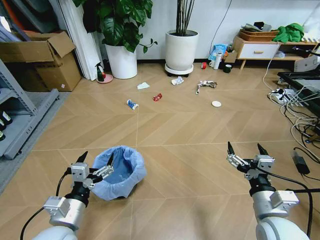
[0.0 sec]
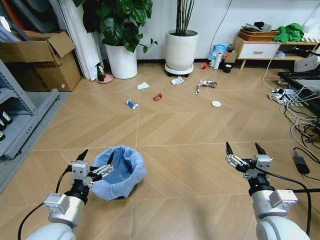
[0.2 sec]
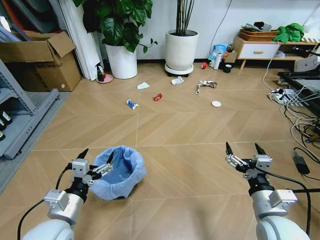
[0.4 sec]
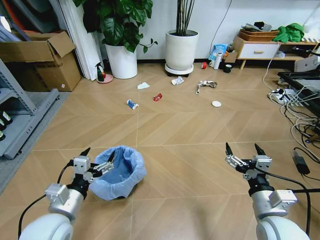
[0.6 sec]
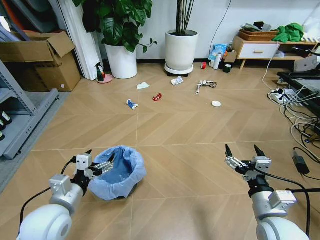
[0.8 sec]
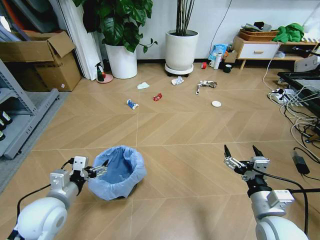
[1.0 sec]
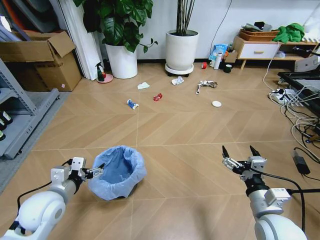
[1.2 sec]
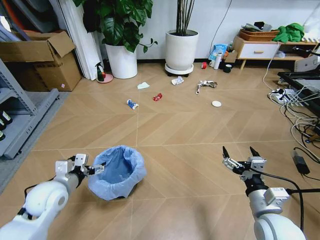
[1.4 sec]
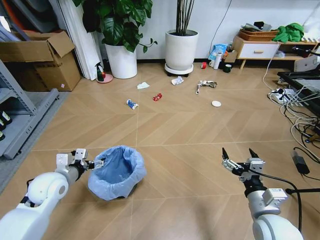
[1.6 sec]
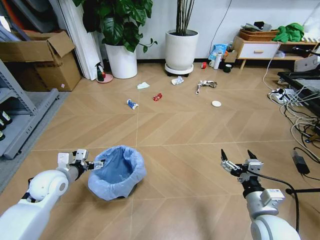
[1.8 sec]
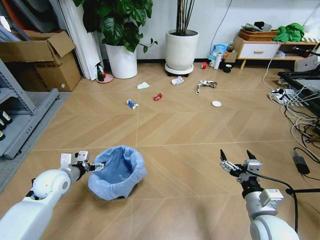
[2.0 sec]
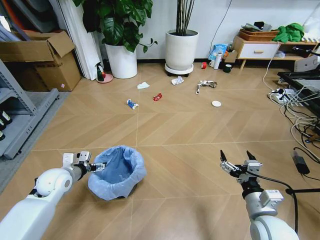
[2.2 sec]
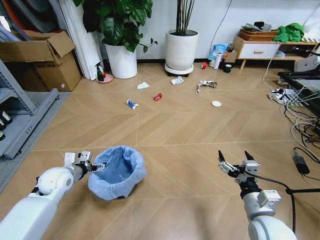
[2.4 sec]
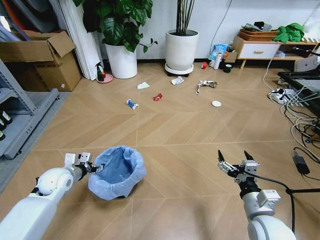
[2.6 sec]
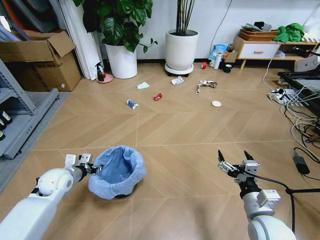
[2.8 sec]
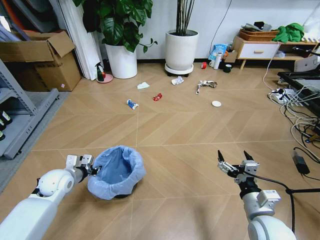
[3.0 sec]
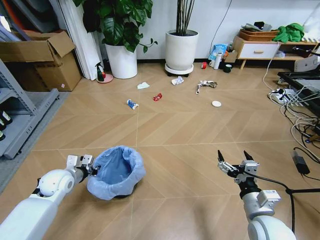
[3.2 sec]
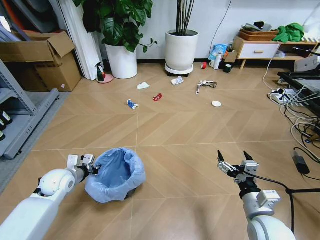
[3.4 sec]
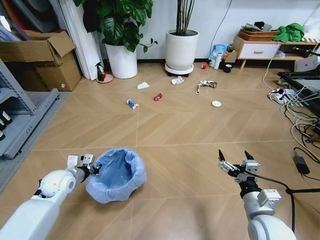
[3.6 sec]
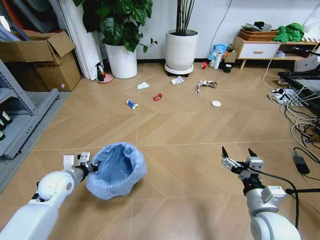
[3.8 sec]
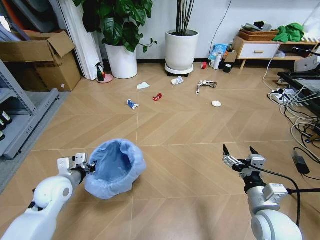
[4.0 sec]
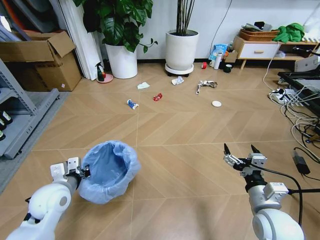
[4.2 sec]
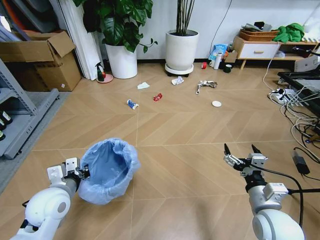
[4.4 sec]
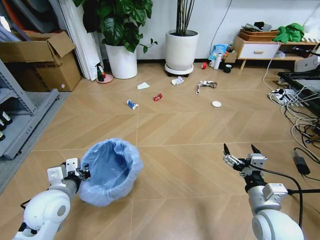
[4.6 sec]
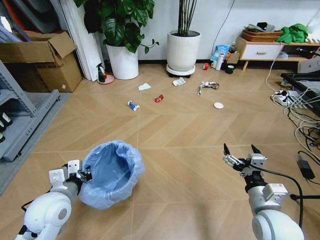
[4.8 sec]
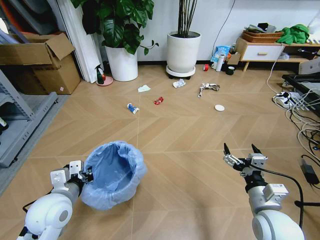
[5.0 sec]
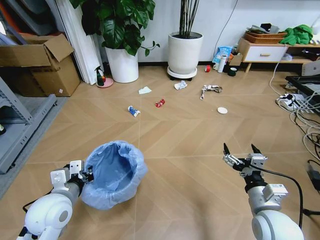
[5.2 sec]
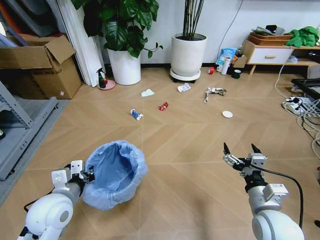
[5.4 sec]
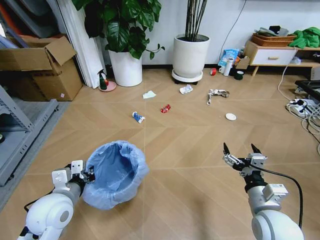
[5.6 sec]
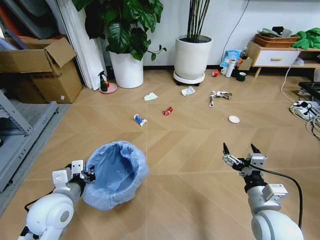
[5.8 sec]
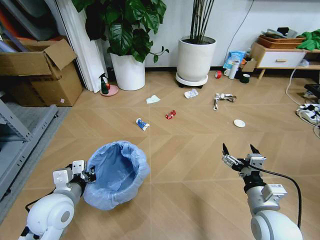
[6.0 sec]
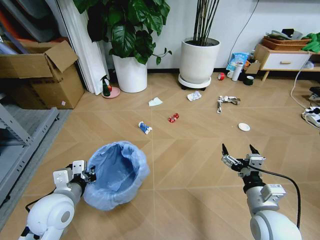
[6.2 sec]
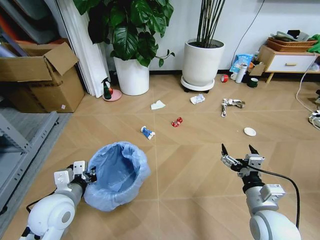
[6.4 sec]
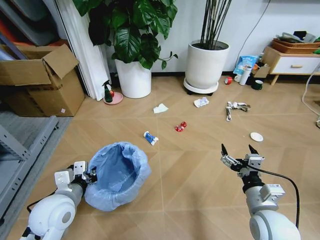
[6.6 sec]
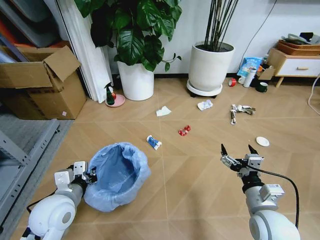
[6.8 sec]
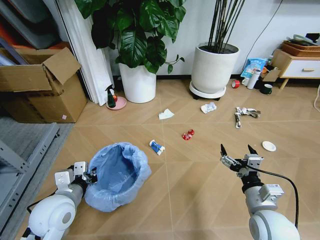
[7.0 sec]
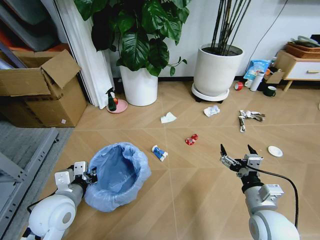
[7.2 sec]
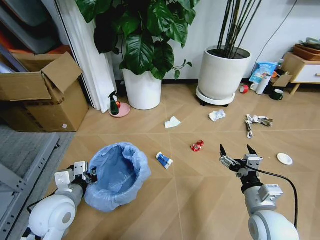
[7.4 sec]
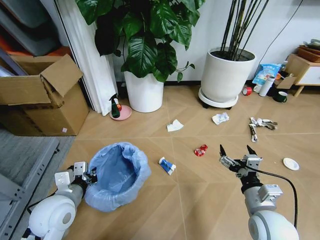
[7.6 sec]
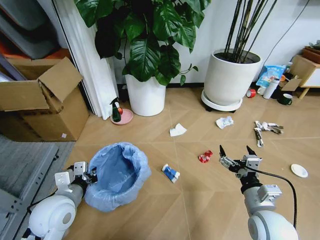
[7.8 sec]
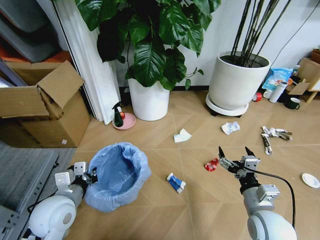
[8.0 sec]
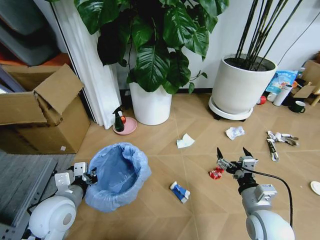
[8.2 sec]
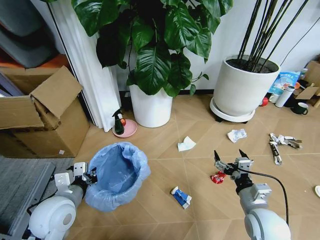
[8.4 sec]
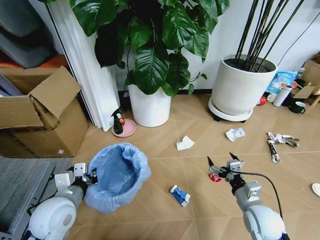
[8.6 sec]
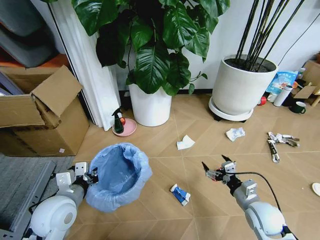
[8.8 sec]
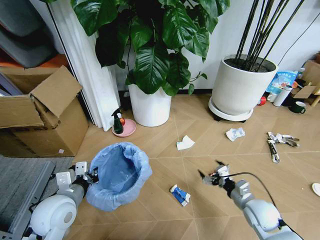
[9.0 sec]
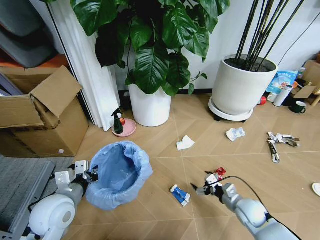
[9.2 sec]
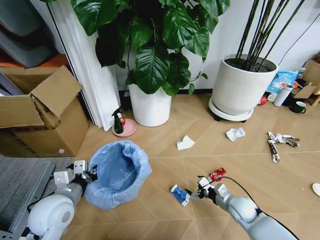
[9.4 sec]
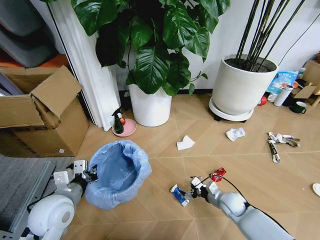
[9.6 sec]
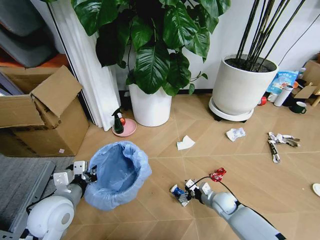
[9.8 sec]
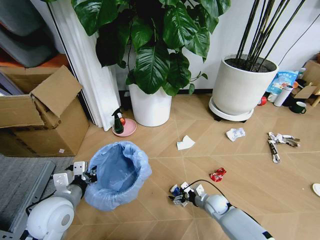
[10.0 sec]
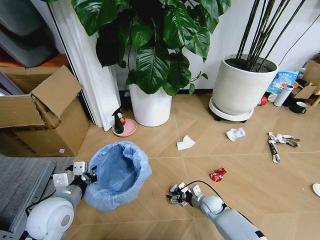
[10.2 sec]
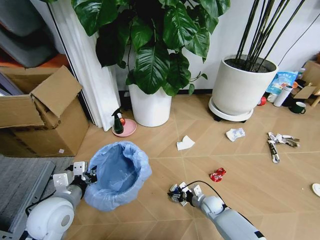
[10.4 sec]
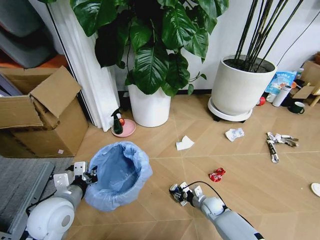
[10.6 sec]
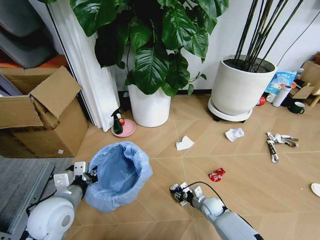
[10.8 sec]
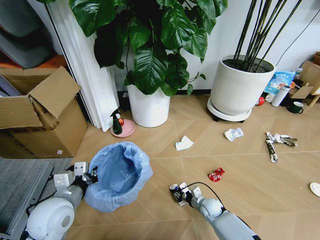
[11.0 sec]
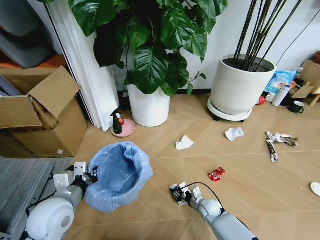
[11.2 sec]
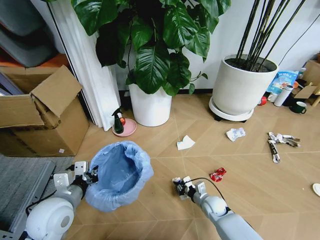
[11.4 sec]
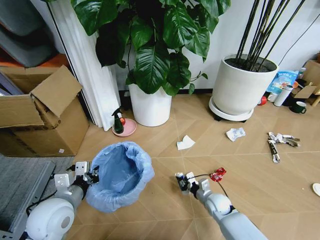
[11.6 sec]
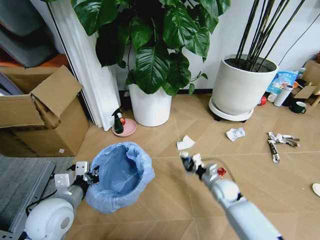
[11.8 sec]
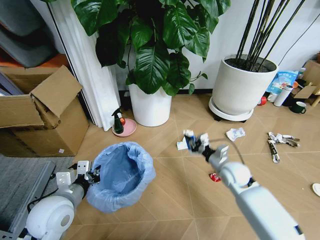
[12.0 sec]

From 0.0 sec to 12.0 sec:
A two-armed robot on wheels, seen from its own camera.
Task of the whole recording: Pick up the trash bin and place the garbage on the floor into it.
From 1.6 sec to 3.0 sec: The left gripper heads downward, covering about 5 cm, and closes up.
From 3.0 sec to 4.4 sec: The left gripper moves backward, upward and to the right, some 15 cm.
From 7.6 sec to 9.0 sec: The right gripper travels downward, forward and to the right by about 15 cm.
From 9.0 sec to 10.4 sec: The right gripper moves downward, to the left and forward, roughly 20 cm.
From 10.4 sec to 12.0 sec: The right gripper is displaced upward by about 20 cm, and closes up.

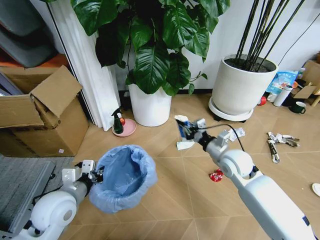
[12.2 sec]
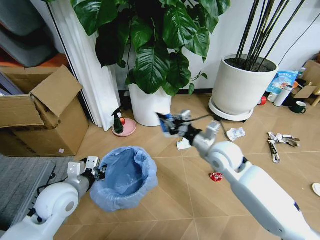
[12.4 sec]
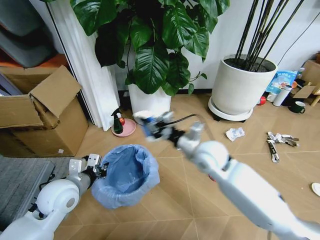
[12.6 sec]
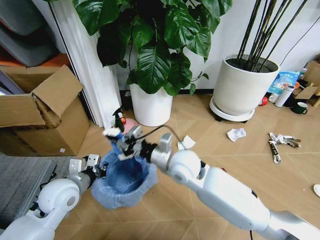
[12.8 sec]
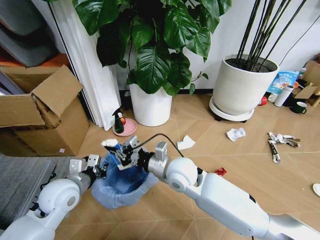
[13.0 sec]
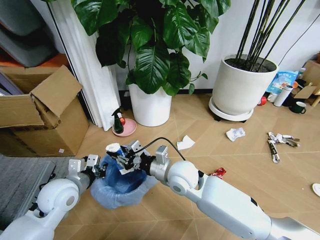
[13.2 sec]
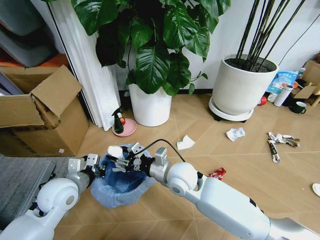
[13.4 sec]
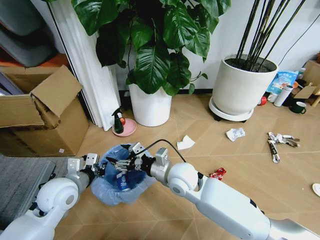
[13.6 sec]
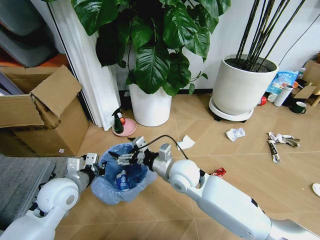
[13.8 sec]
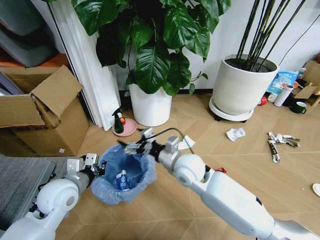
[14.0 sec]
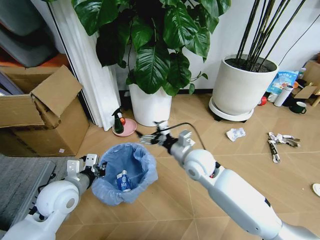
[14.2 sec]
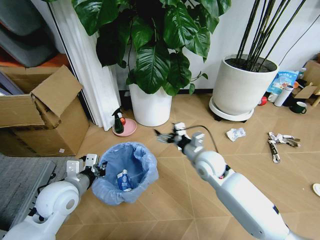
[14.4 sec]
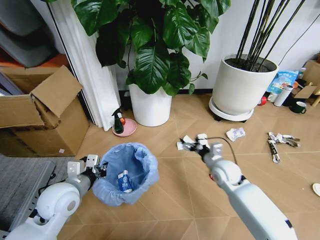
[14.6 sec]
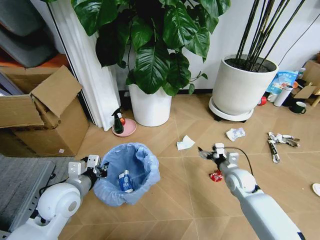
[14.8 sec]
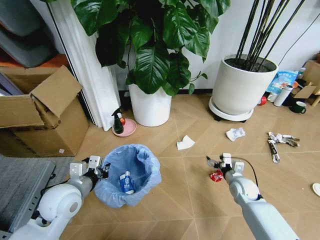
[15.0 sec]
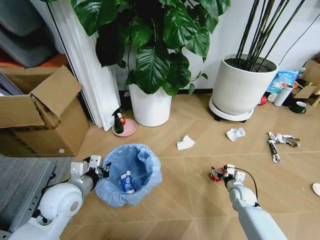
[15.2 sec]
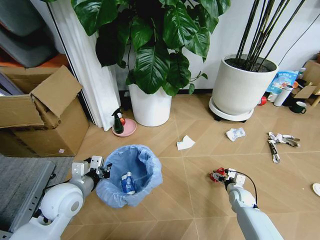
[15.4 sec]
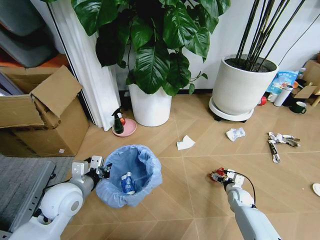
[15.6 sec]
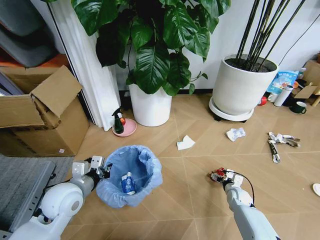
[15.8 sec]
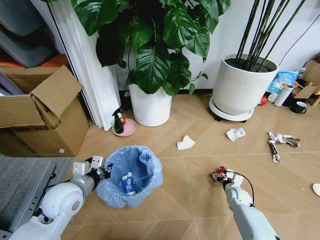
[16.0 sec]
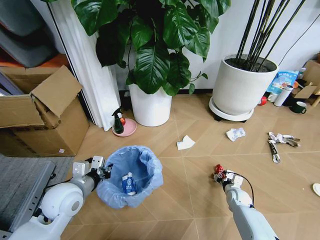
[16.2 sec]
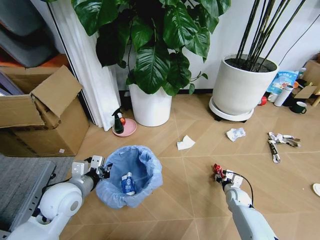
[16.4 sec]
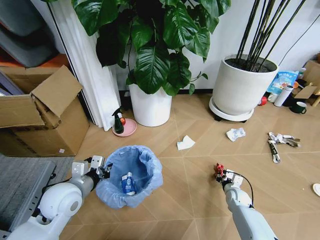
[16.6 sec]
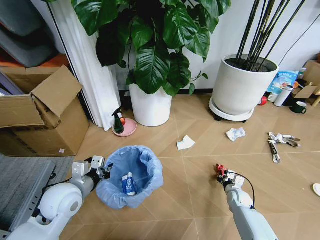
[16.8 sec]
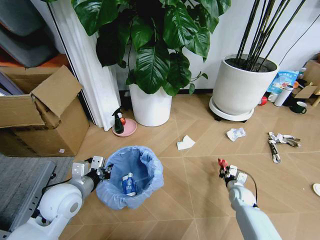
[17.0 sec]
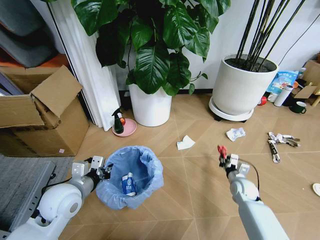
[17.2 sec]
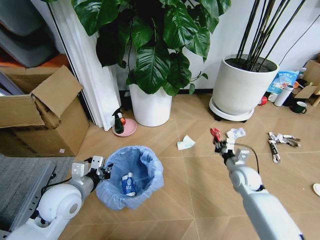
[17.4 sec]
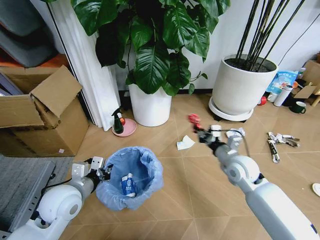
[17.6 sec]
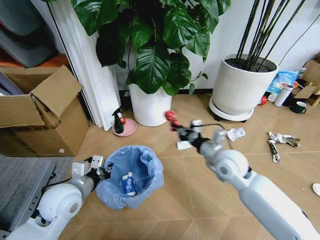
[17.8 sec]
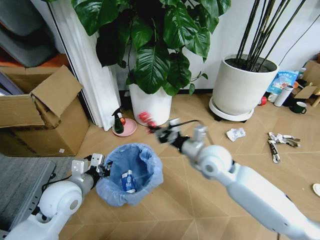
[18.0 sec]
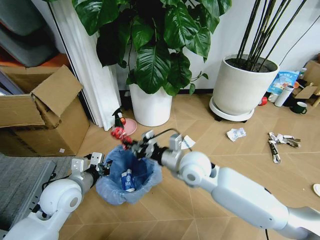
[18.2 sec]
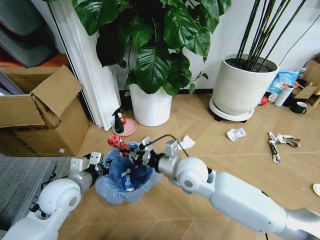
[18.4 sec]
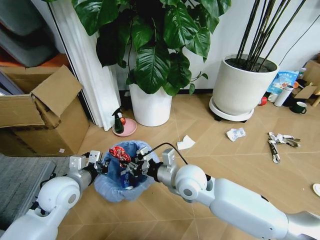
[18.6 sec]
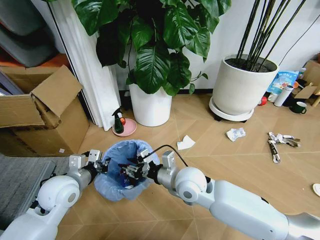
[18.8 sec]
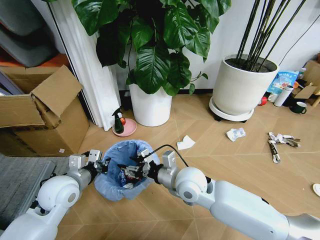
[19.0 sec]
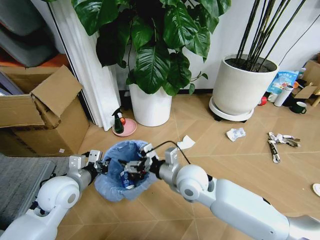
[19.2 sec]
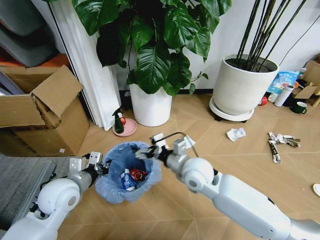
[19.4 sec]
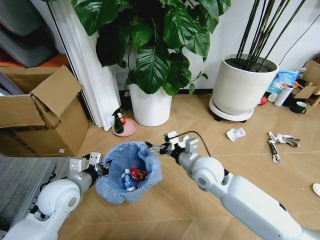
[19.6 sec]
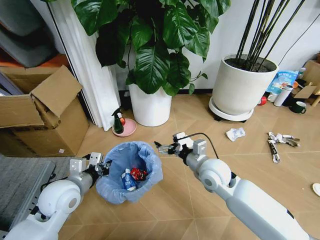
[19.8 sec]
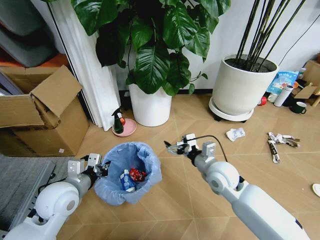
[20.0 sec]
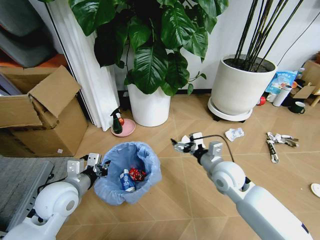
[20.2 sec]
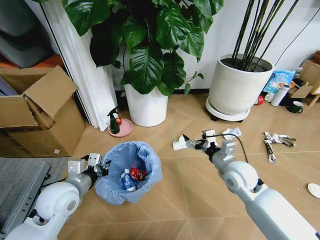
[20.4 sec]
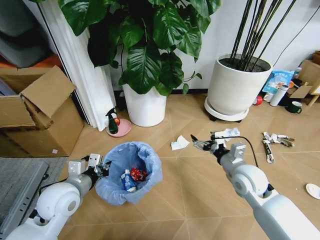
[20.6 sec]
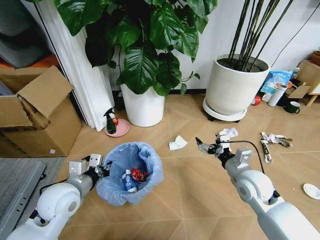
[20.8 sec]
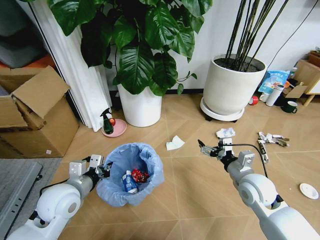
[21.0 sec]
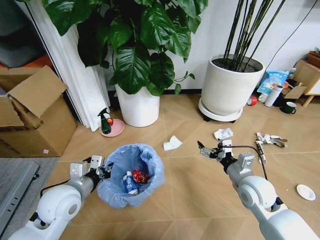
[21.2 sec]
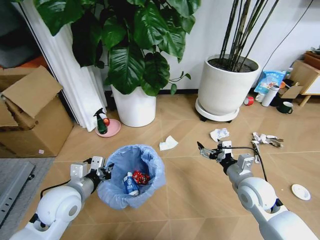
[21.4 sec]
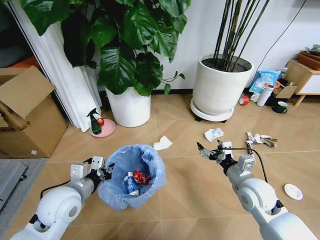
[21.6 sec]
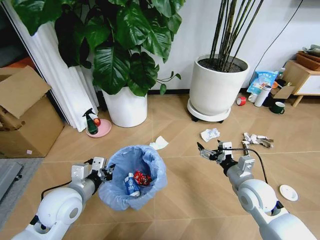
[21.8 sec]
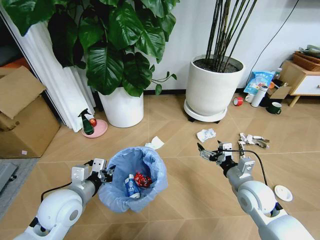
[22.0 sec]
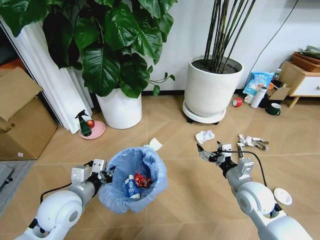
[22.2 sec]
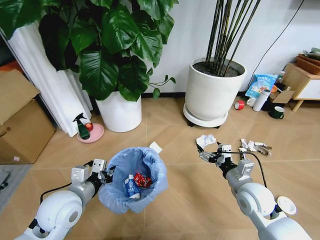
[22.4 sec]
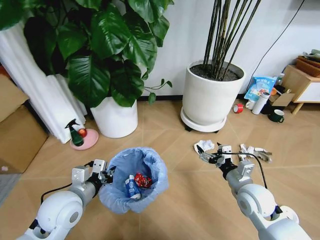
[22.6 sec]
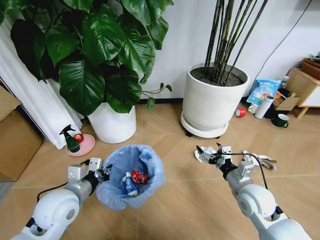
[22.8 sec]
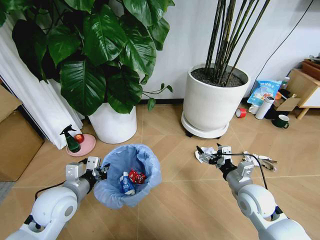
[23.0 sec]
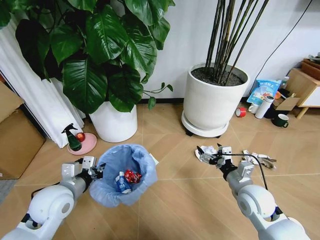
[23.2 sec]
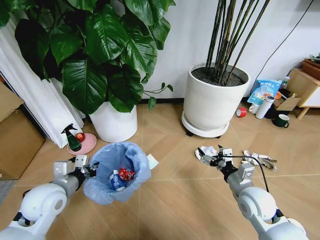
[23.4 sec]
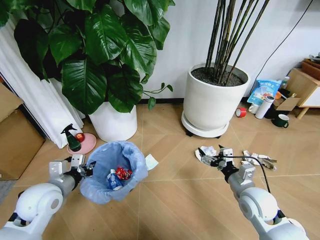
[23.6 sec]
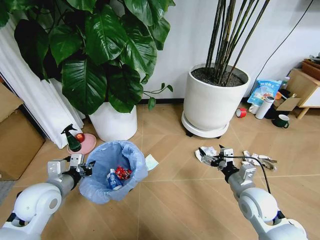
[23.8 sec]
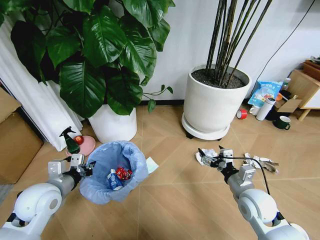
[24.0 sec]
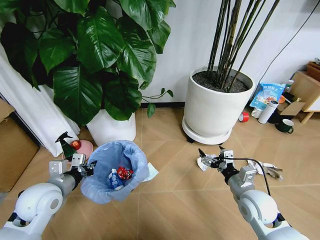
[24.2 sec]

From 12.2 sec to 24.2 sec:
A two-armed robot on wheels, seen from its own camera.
Task of the whole recording: Pick up the trash bin and place the garbage on the floor into it.
From 12.2 sec to 13.8 sec: The right gripper moves to the left, some 20 cm, and opens its fingers.
From 13.8 sec to 15.2 sec: The right gripper moves to the right and downward, some 35 cm.
From 15.2 sec to 16.6 sec: The right gripper closes.
From 16.6 sec to 18.2 sec: The right gripper heads upward and to the left, covering roughly 40 cm.
From 18.2 sec to 19.8 sec: The right gripper is displaced to the right by roughly 5 cm, and opens up.
From 19.8 sec to 21.2 sec: The right gripper heads to the right and backward, covering roughly 15 cm.
From 22.6 sec to 24.2 sec: The left gripper heads to the left, covering about 5 cm.
